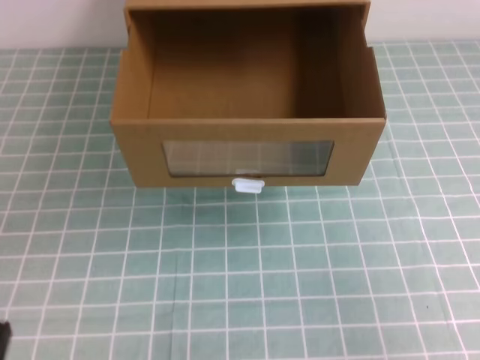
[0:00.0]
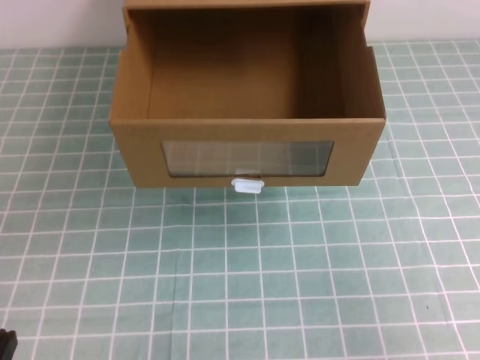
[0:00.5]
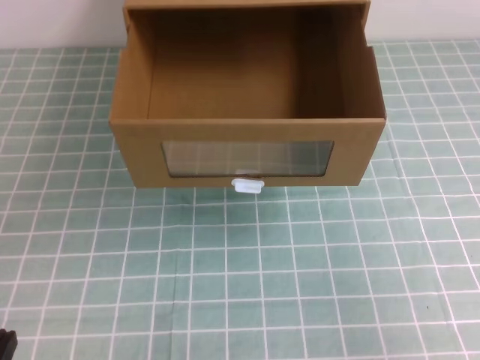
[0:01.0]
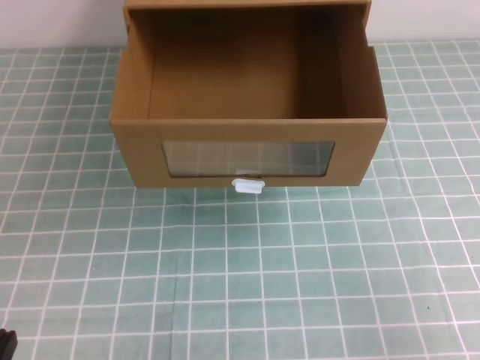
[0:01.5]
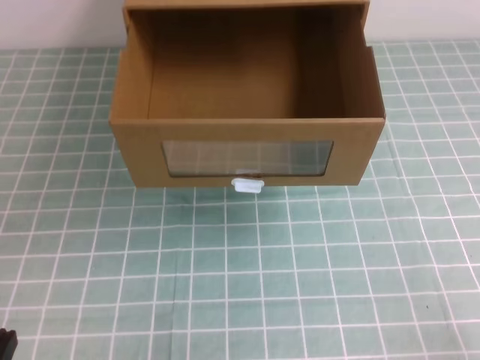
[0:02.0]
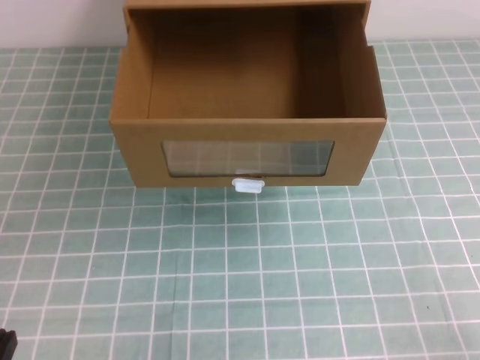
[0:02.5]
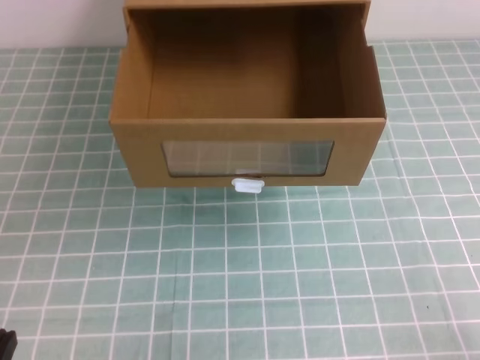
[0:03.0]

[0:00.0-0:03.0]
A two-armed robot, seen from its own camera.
Task of the whole recording: open the shoebox on the cyan tablecloth.
Step, 0:00.0 to 0:03.0: Open the shoe box.
0:01.5 to 0:03.0: The right gripper is displaced downward by some 10 cm.

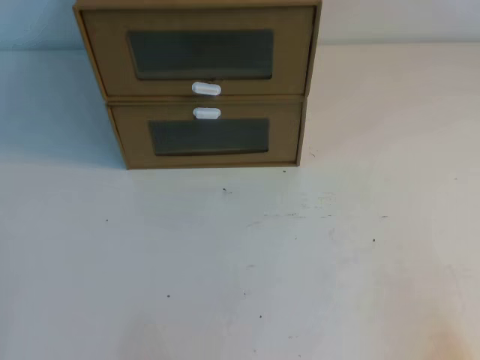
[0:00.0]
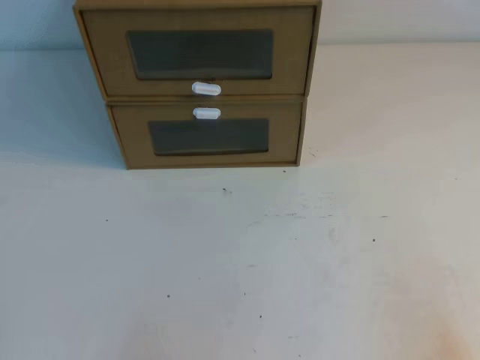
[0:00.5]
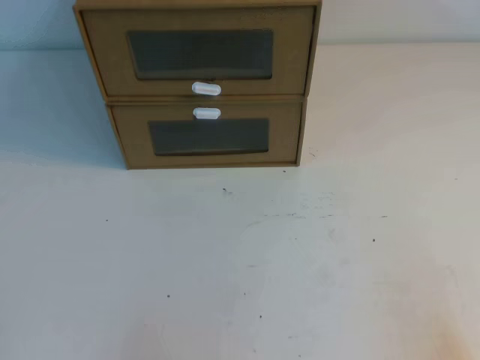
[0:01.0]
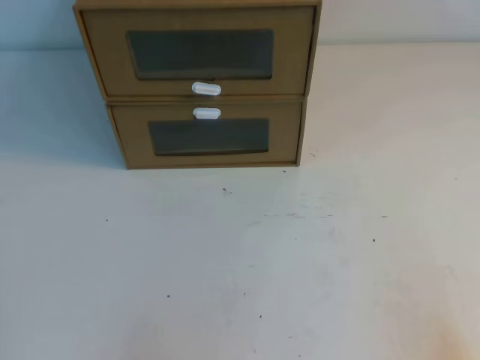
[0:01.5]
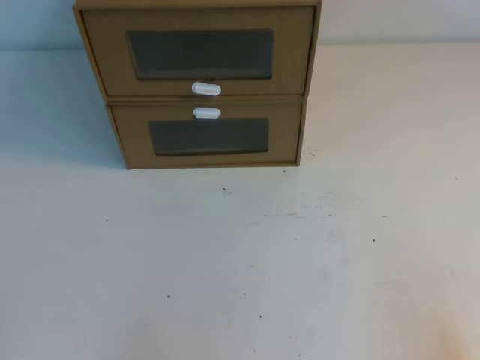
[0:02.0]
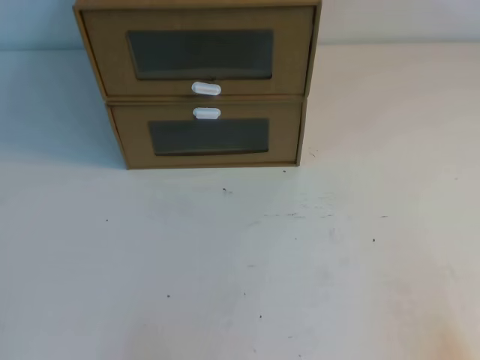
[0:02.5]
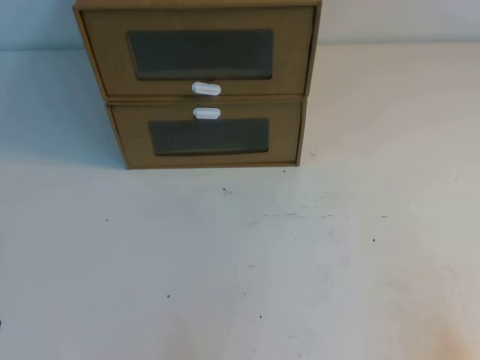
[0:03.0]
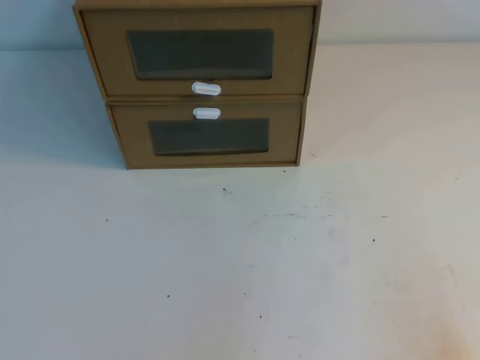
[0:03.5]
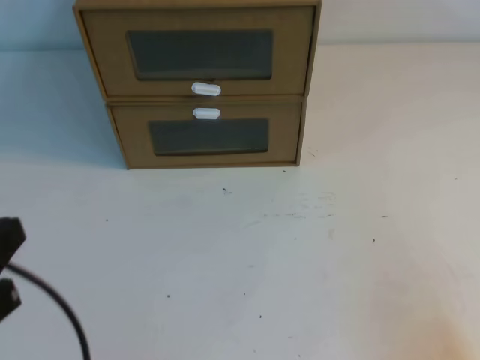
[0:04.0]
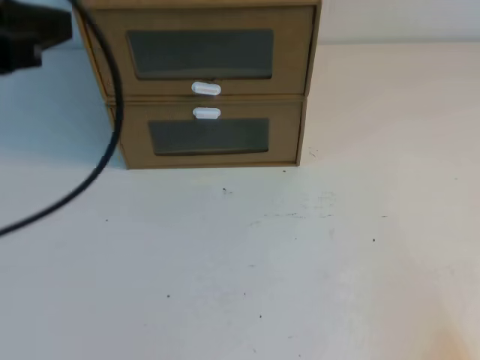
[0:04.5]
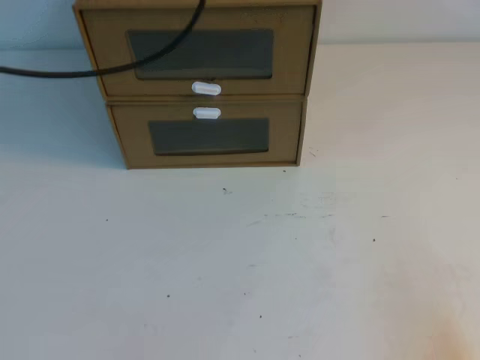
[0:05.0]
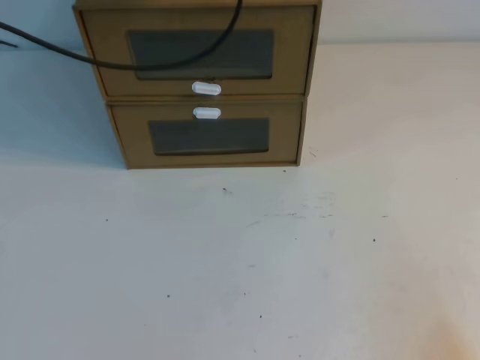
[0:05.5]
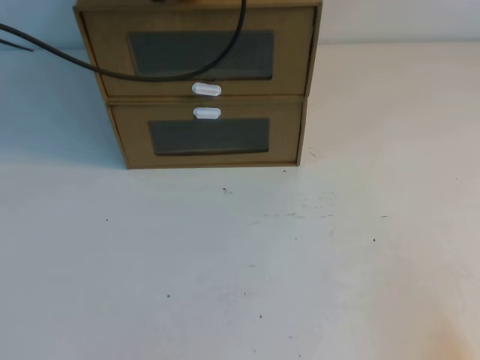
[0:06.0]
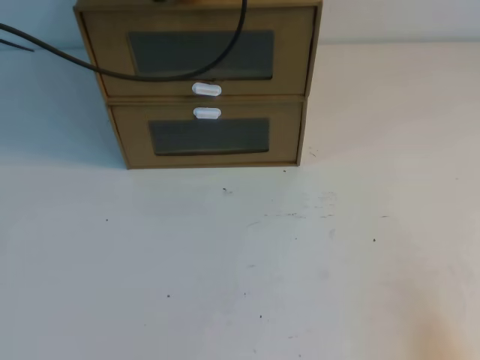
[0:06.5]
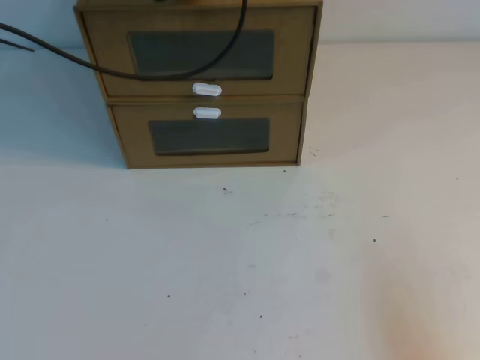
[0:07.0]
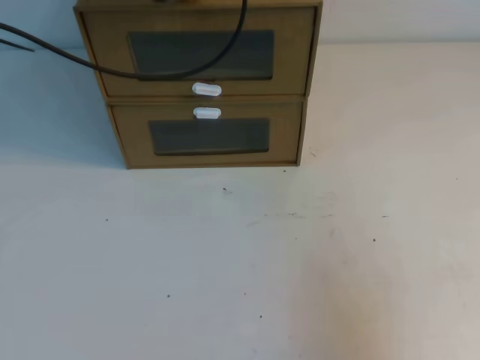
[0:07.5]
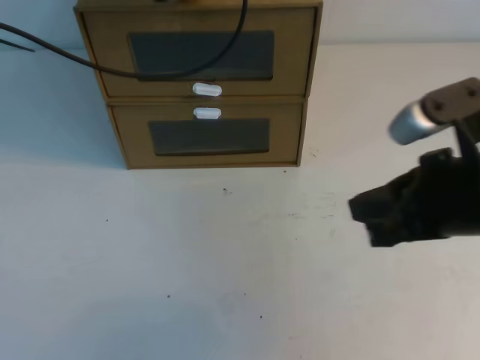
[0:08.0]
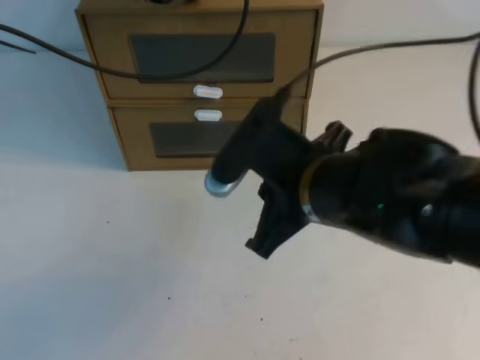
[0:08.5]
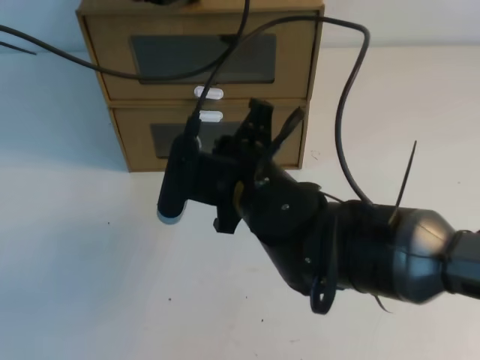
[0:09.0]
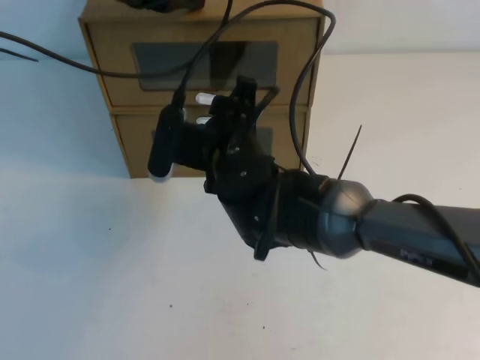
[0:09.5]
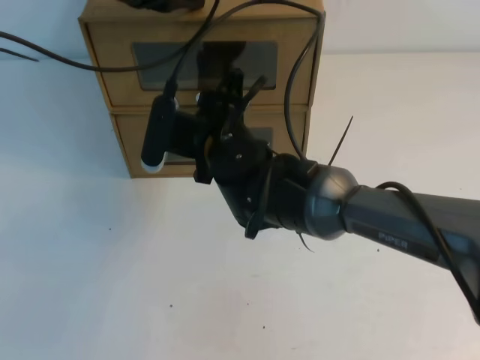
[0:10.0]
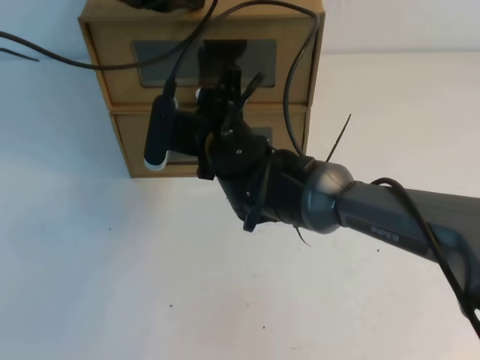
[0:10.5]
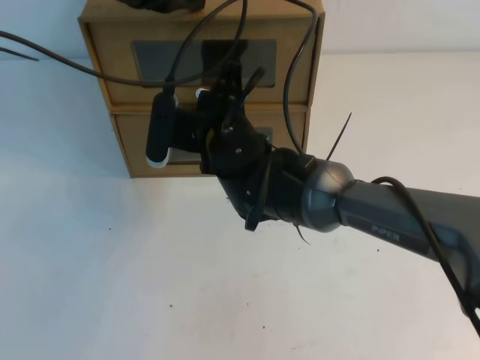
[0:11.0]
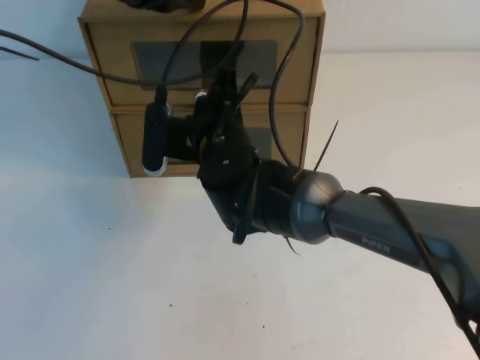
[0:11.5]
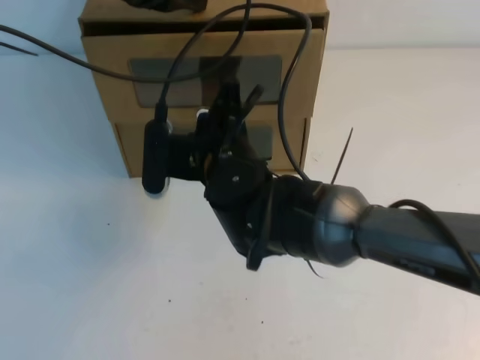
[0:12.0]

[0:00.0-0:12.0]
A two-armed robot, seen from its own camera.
Task of the whole recording: open the shoebox on the table.
0:02.0 to 0:04.0: The left gripper goes about 10 cm upward.
0:04.0 to 0:06.0: The left gripper heads forward, covering approximately 35 cm.
0:06.0 to 0:08.0: The right gripper moves upward, forward and to the left, roughly 20 cm.
0:08.0 to 0:10.0: The right gripper goes some 30 cm to the left and forward, and opens its fingers.
0:10.0 to 0:12.0: The right gripper closes.

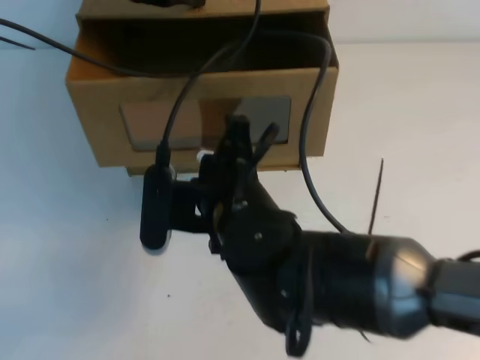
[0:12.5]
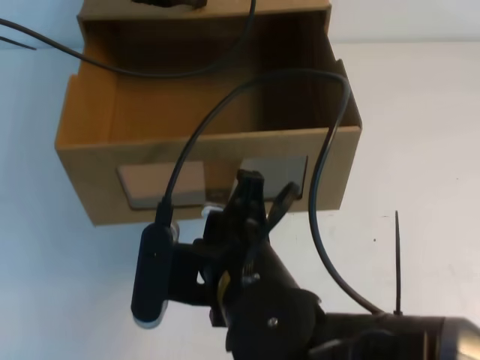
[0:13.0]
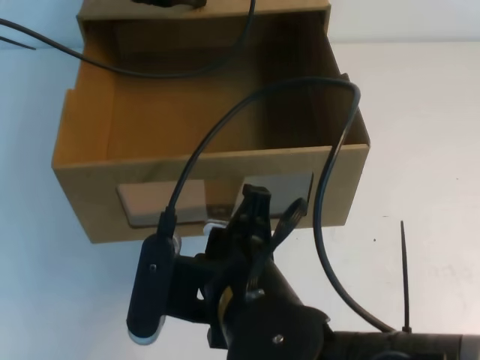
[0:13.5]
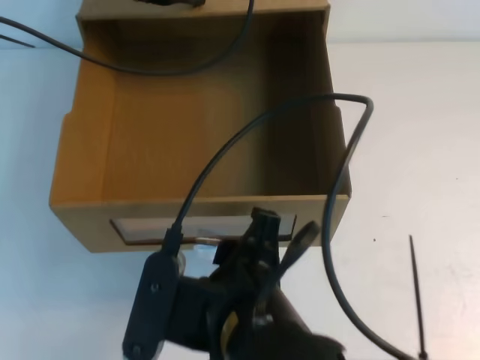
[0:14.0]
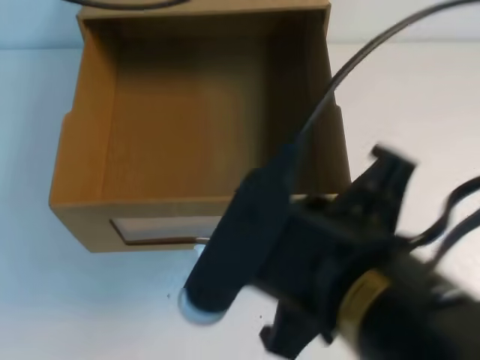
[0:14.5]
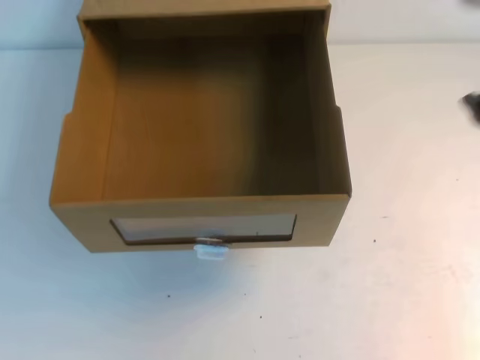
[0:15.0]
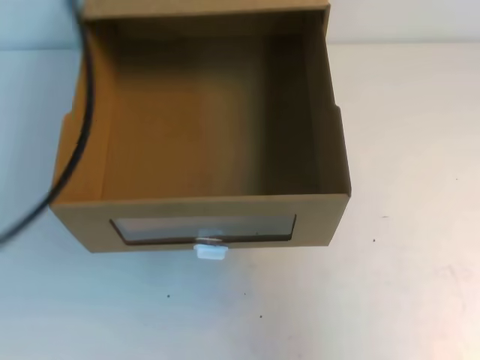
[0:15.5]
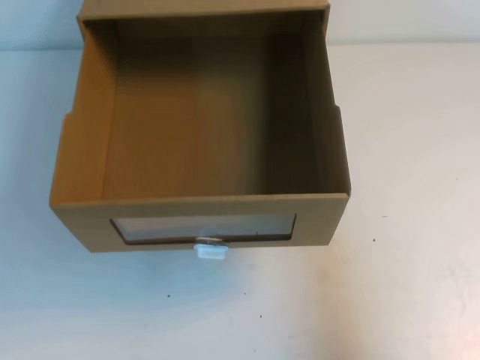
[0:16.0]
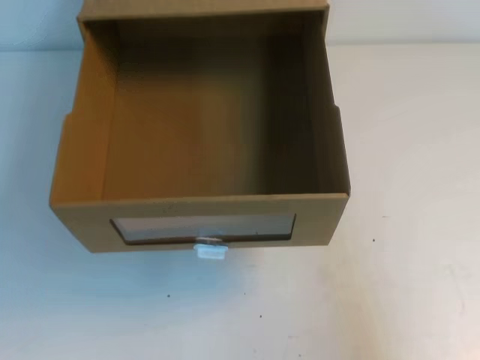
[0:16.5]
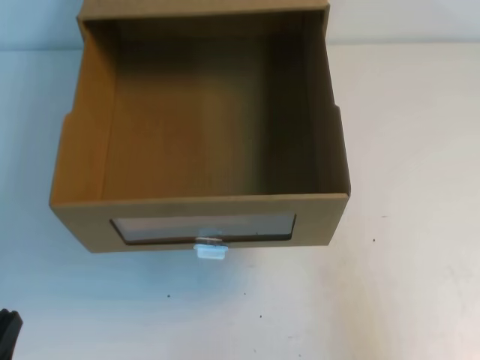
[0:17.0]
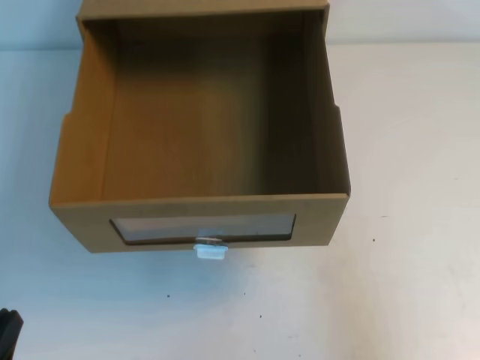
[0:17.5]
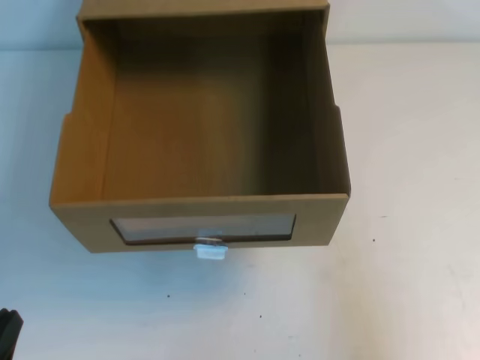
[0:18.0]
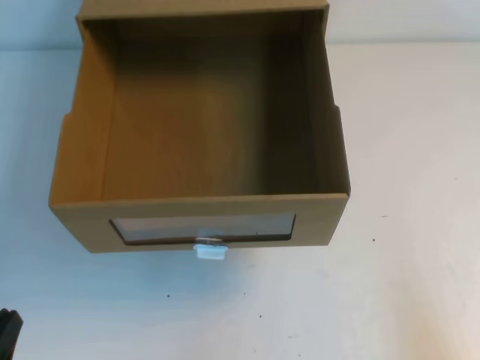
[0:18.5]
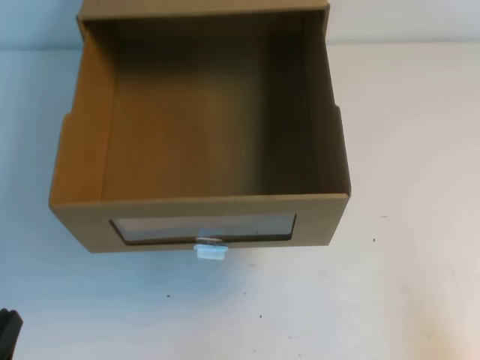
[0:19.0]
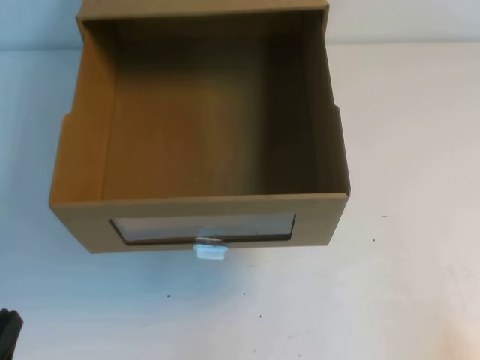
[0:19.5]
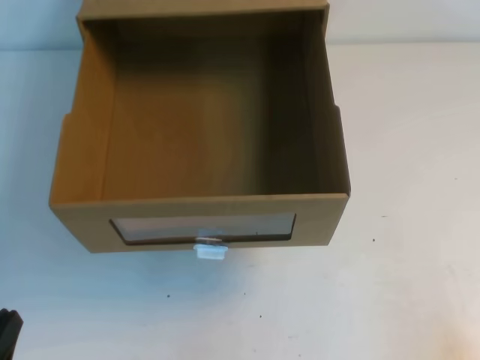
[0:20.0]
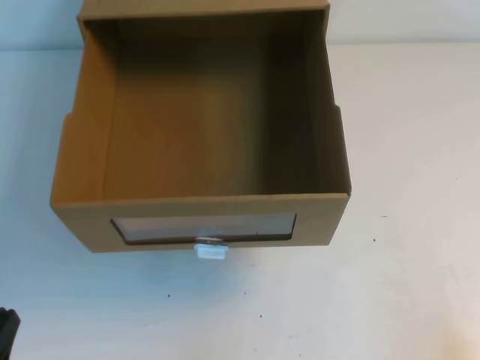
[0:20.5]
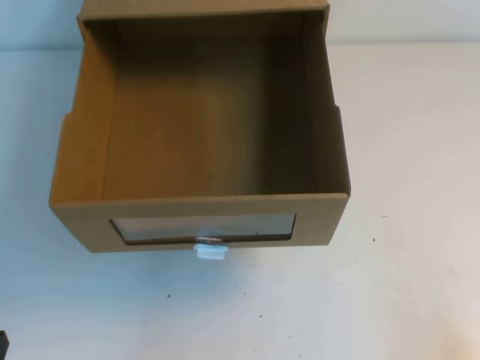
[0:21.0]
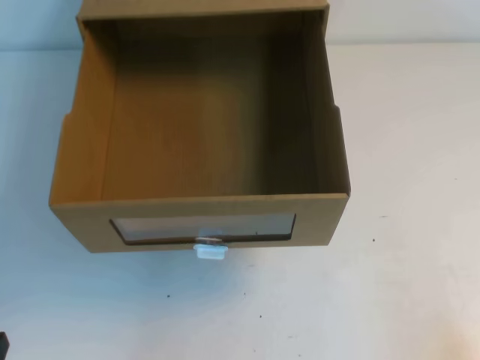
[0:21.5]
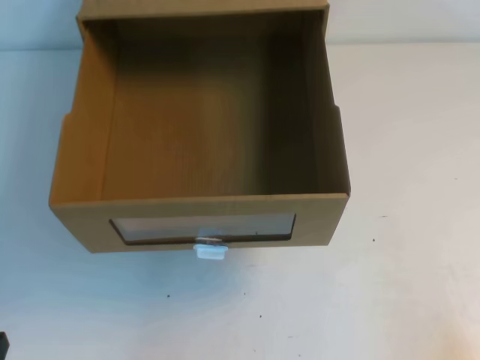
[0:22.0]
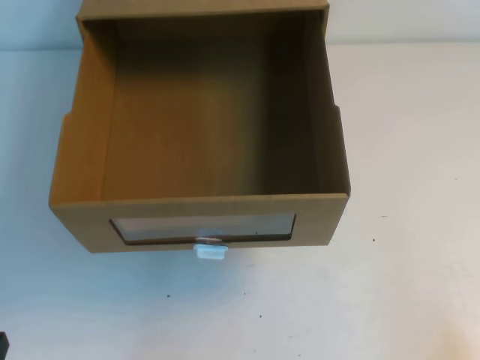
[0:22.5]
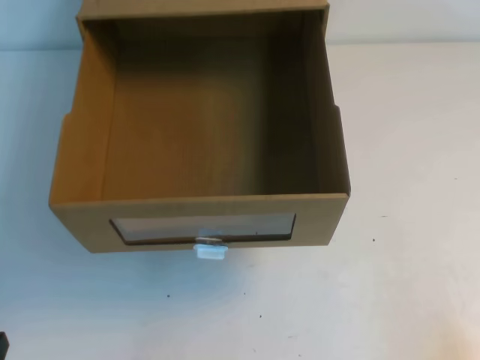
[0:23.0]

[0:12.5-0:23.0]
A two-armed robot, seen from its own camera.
Task of the whole recording: open the shoebox on the table.
Step, 0:12.5 to 0:23.0: Open the shoe box.
0:12.5 to 0:14.5: The left gripper goes some 5 cm upward, while the right gripper is displaced backward and upward by some 20 cm, and opens its fingers.
0:14.5 to 0:16.5: The left gripper heads backward and downward, covering some 40 cm, while the right gripper travels to the right by some 25 cm, and closes its fingers.
0:16.5 to 0:19.0: The right gripper goes about 10 cm downward.
0:21.0 to 0:23.0: The two grippers keep their place.
